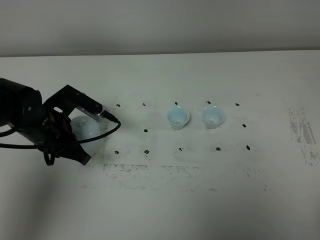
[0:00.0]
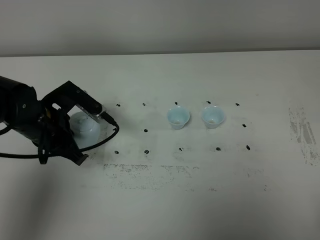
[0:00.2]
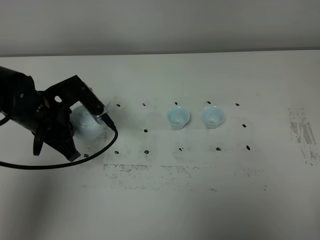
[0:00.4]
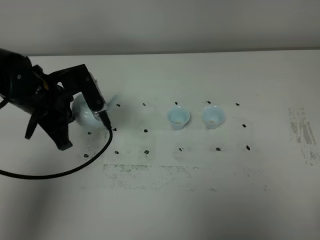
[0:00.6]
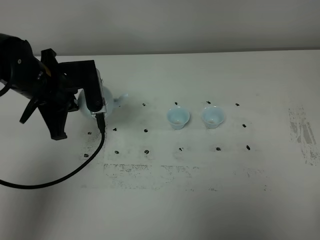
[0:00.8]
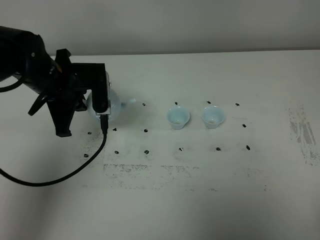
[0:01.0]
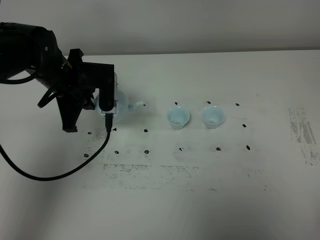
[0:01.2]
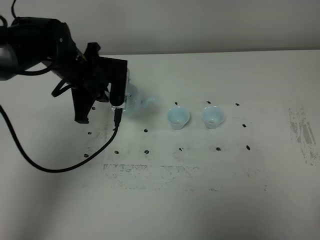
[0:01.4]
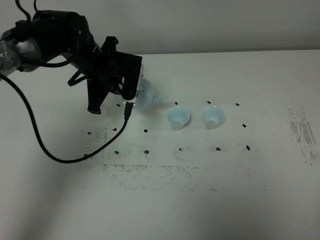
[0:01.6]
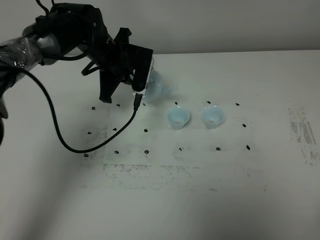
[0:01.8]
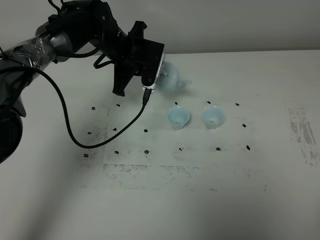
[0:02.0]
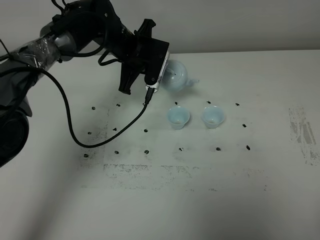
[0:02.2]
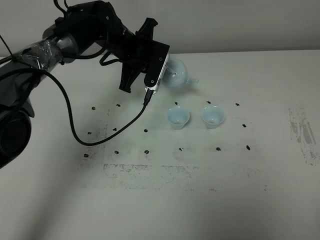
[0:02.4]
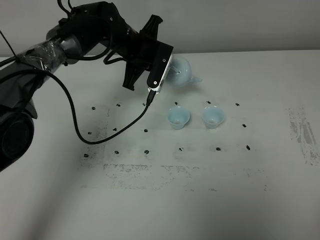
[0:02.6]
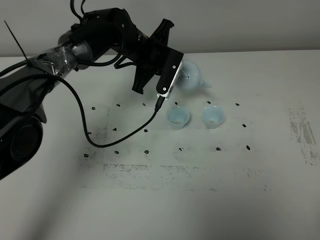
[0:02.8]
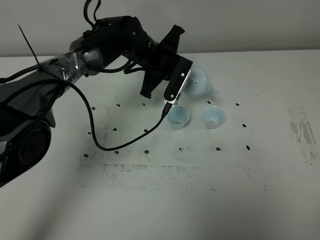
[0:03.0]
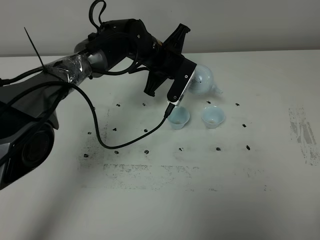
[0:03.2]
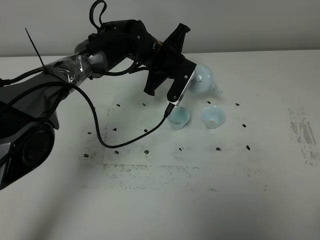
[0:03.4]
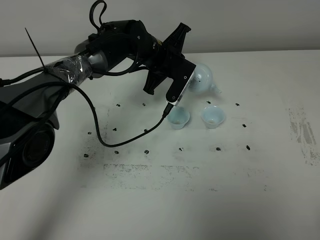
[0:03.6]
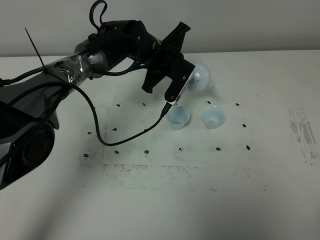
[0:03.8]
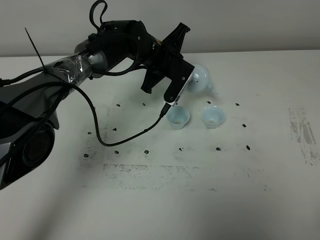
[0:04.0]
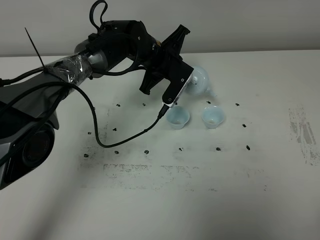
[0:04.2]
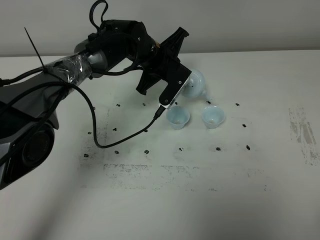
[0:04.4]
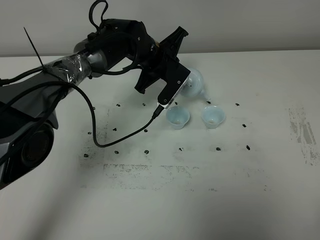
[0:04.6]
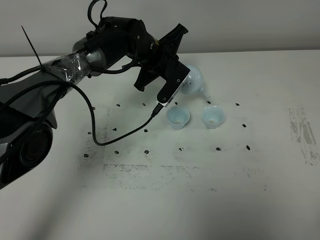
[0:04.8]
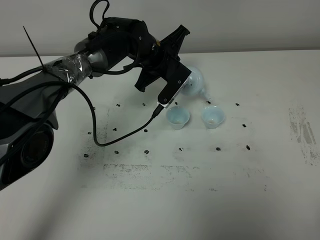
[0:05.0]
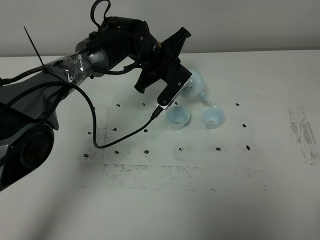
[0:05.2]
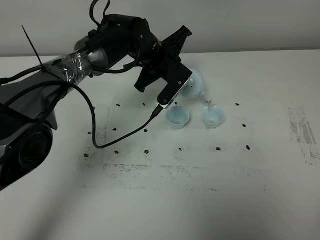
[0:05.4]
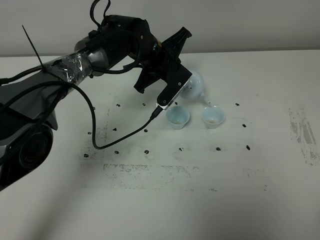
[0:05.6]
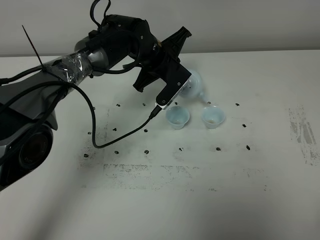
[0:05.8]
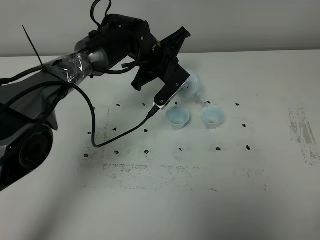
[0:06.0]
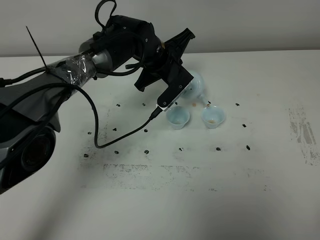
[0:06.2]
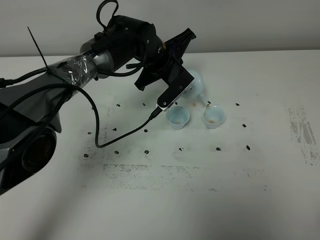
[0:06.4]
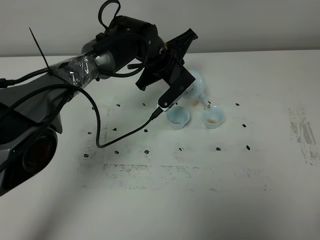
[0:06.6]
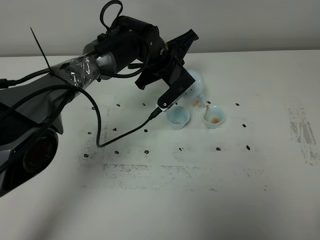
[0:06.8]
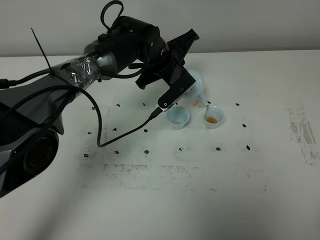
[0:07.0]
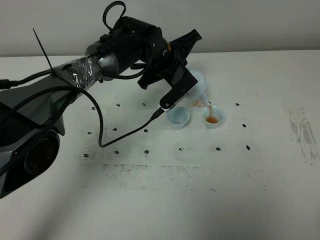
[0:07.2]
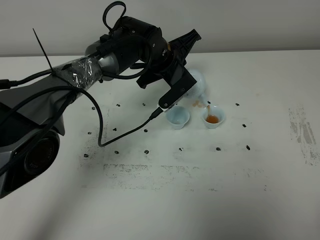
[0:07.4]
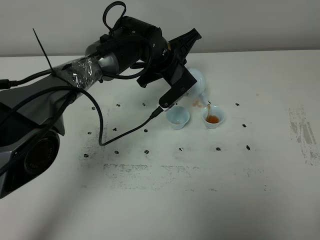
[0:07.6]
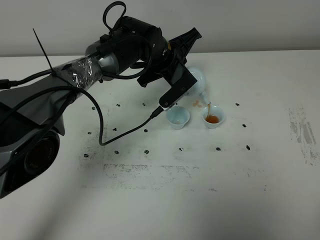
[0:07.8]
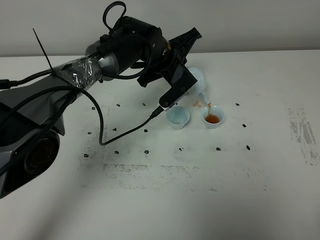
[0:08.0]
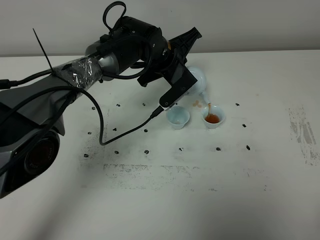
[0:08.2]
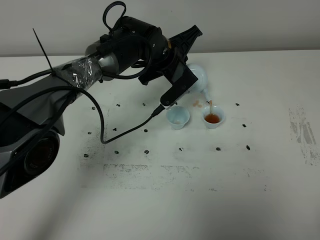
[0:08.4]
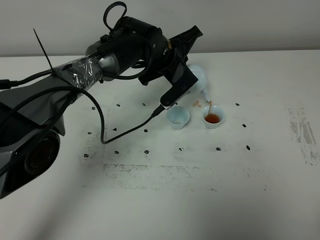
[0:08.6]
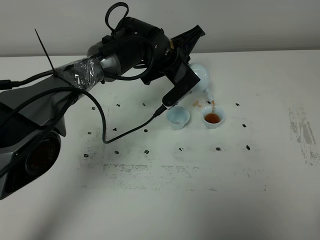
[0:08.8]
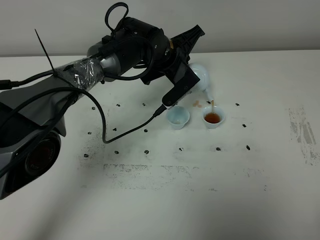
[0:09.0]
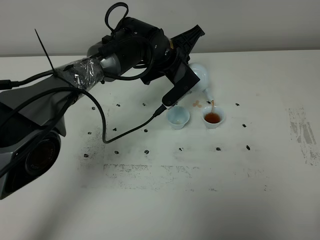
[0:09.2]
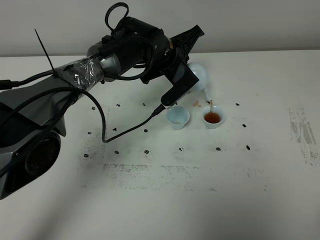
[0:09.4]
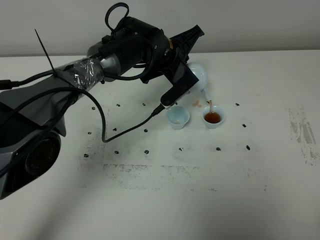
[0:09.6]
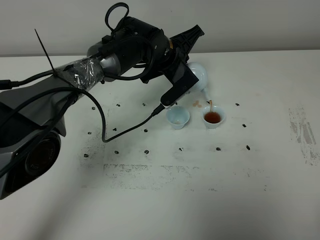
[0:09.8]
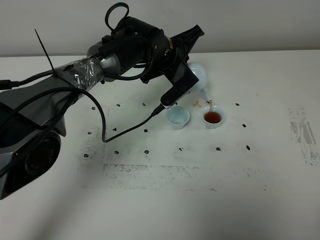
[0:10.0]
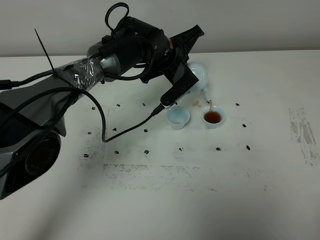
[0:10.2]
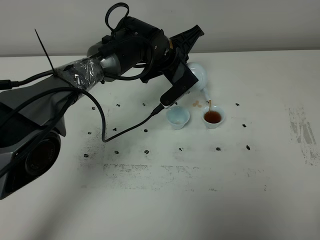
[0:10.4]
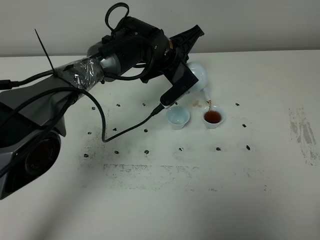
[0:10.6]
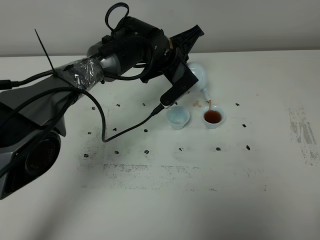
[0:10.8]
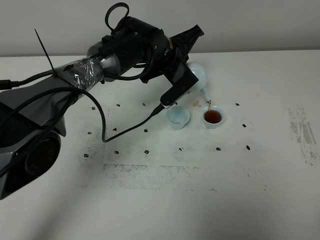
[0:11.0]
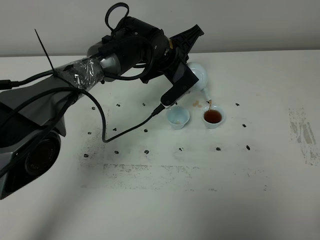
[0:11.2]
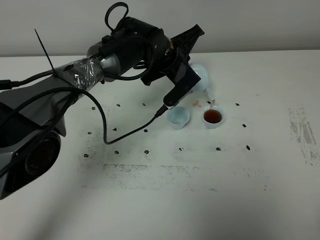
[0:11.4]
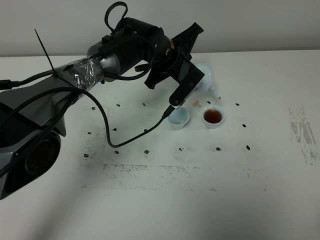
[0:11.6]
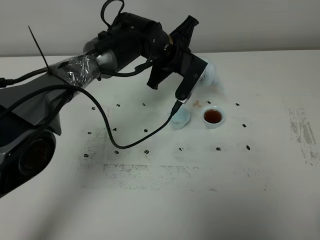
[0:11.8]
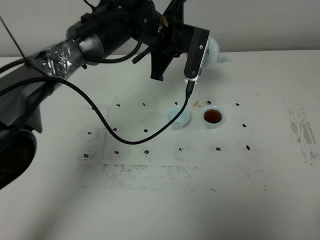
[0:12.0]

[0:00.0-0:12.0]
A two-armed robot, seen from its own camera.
Task of the whole recording: grasp the blue porcelain teapot and pour the tea into the two blue porcelain teacups one by one, put the blue porcelain teapot back in its original place.
0:00.0 to 0:01.6: The left gripper heads forward and to the right, covering roughly 15 cm.
0:01.6 to 0:03.0: The left gripper goes roughly 10 cm to the right.
0:03.0 to 0:06.0: The grippers stay close to where they were, moving slightly.
0:06.0 to 0:07.6: The grippers stay close to where they were, moving slightly.
0:07.6 to 0:10.4: Neither gripper changes place.
0:10.4 to 0:12.0: The left gripper moves upward, approximately 5 cm.

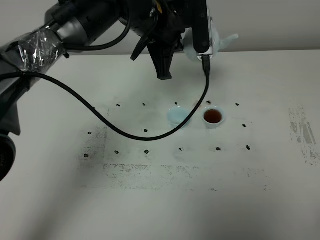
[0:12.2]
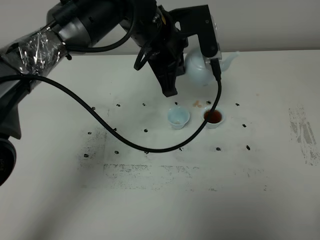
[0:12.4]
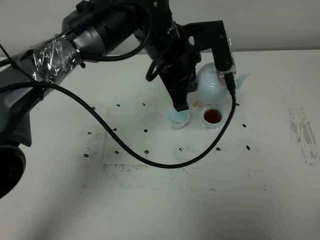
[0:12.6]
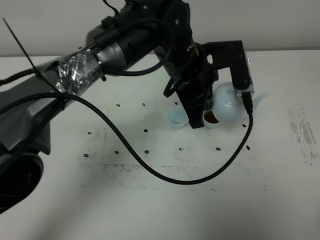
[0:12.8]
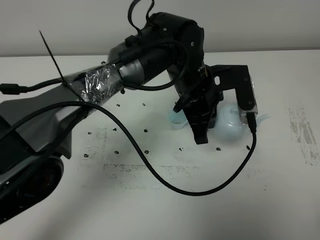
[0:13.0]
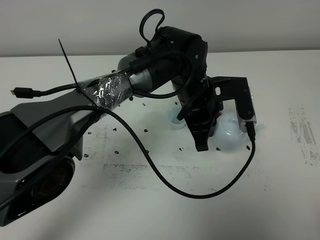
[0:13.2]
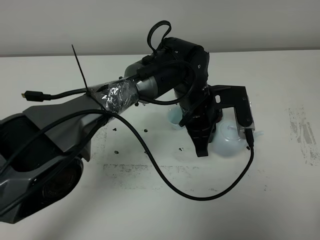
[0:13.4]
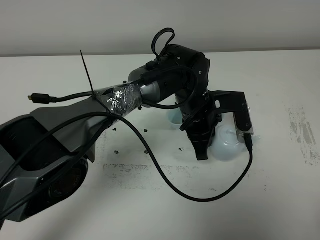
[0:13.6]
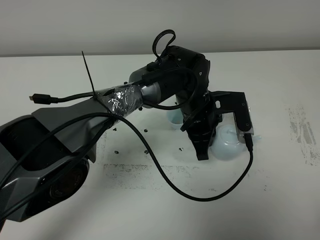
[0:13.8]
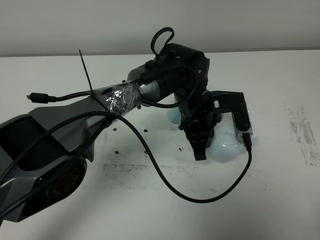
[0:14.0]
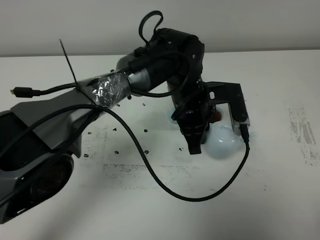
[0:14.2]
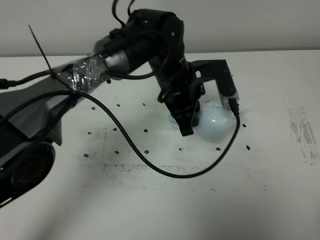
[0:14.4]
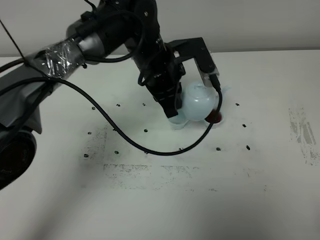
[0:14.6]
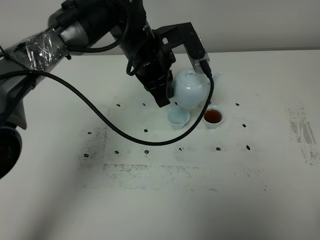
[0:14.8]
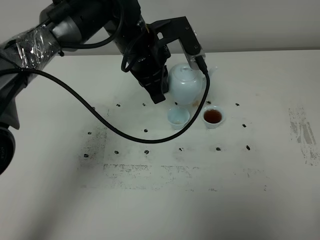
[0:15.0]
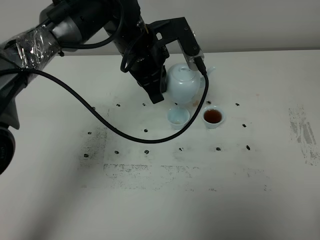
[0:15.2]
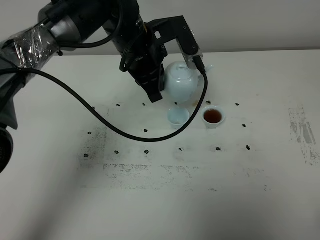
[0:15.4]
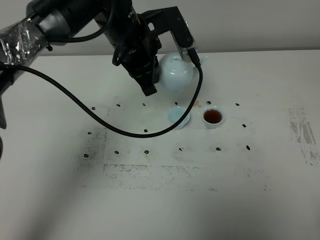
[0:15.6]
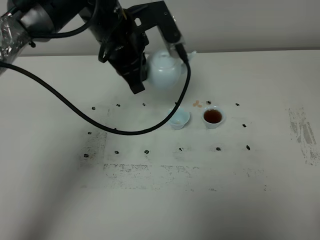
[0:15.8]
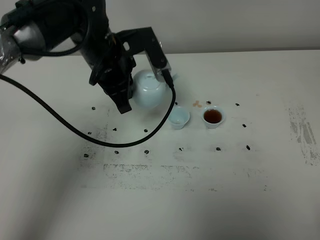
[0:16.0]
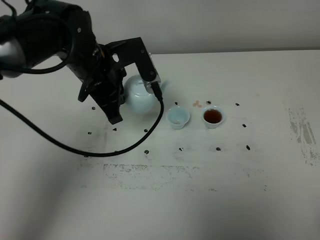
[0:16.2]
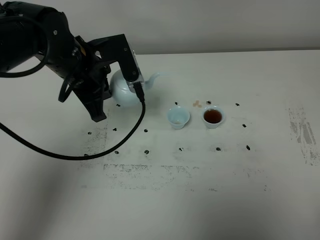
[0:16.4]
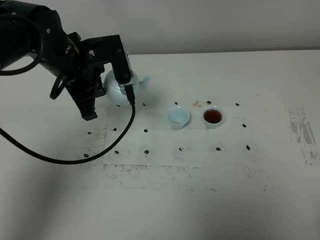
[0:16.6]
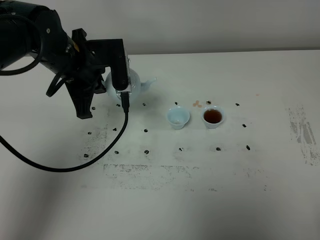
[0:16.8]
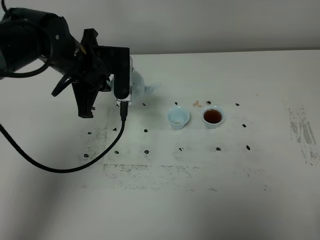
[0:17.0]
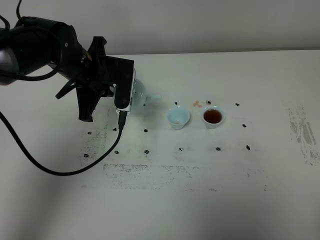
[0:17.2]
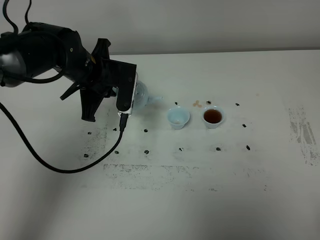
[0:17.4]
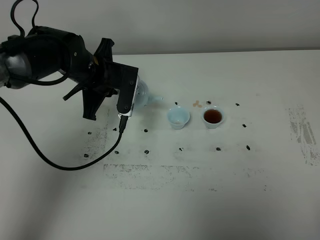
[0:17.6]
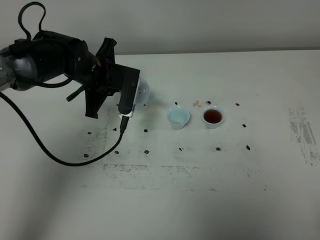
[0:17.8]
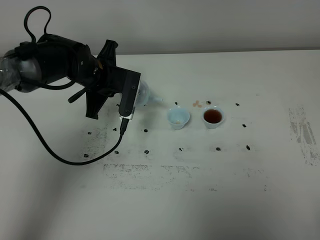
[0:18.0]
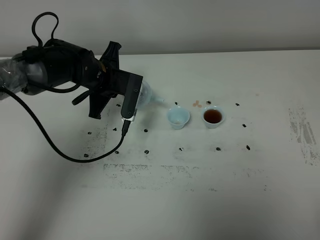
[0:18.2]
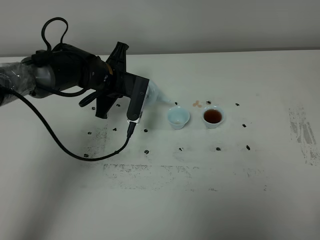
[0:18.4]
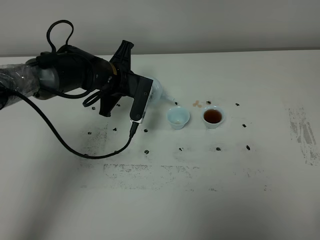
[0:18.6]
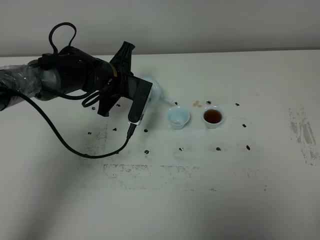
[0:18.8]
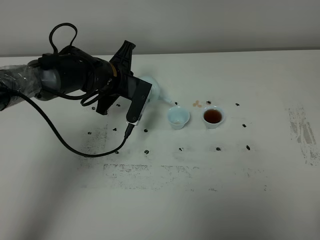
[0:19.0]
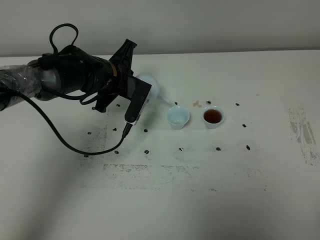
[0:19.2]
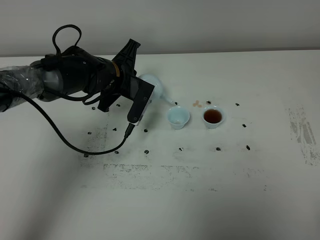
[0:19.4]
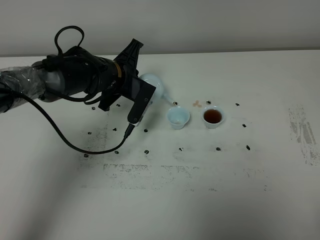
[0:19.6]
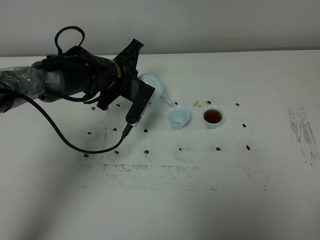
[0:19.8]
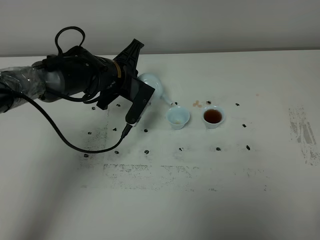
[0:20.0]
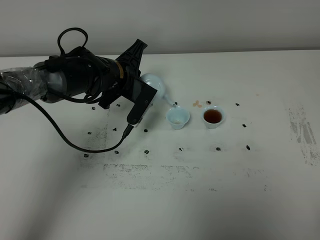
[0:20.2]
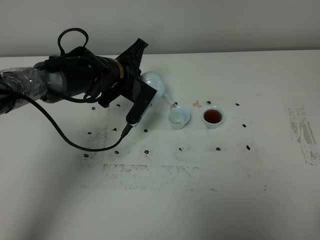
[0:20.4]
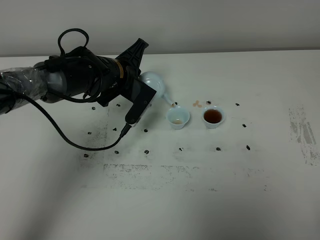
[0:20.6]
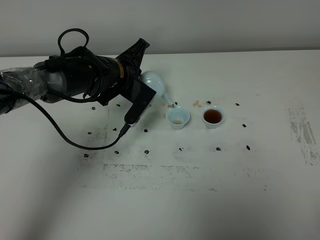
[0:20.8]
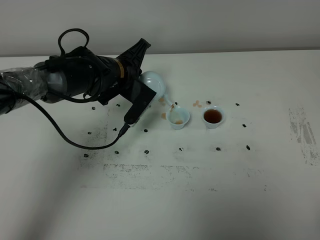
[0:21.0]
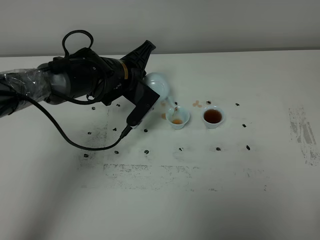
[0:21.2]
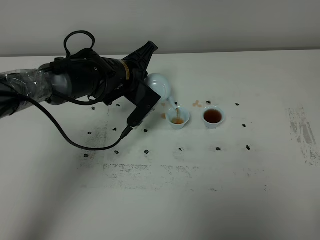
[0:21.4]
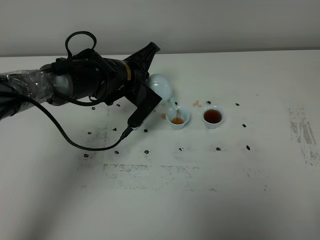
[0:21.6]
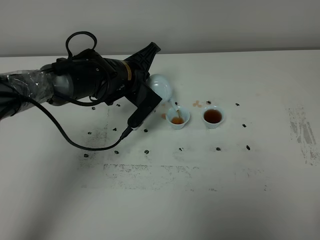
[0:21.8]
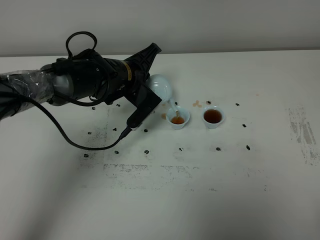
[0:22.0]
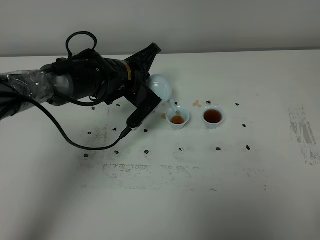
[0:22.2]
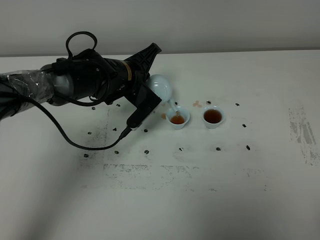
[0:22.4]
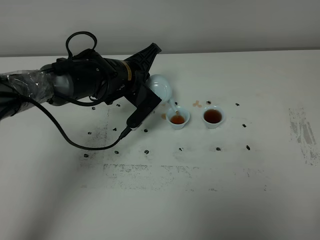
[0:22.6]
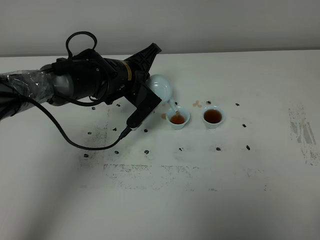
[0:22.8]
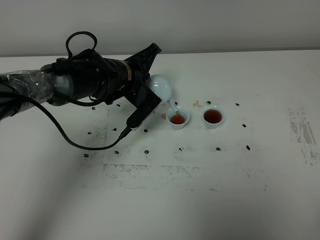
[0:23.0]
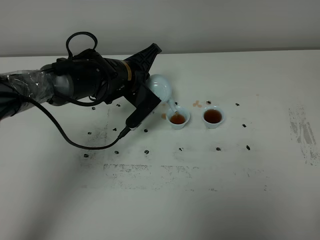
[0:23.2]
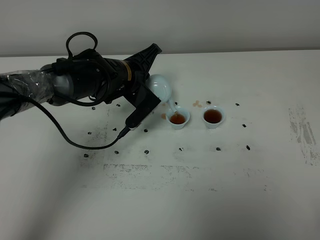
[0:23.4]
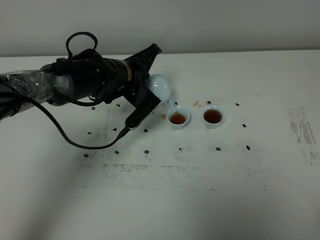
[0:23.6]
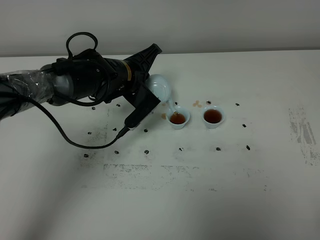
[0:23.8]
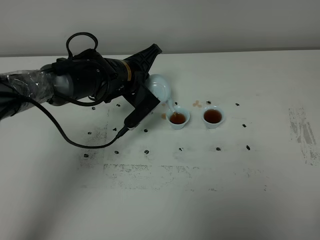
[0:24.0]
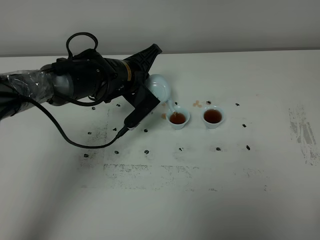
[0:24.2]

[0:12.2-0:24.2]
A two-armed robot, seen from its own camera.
Task of the whole recording: grasp the blue porcelain teapot and pour the tea into the two blue porcelain teacups one by one, put the blue porcelain teapot back in its original place.
0:12.2 to 0:13.8: The left gripper moves downward and to the right, approximately 15 cm.
0:13.8 to 0:15.2: The left gripper moves upward and to the left, about 15 cm.
0:15.2 to 0:16.6: The left gripper goes approximately 10 cm to the left.
0:16.6 to 0:18.2: The left gripper travels downward and forward by some 10 cm.
0:18.2 to 0:19.8: The grippers move only a little.
0:19.8 to 0:21.2: There are only small adjustments of the grippers.
0:21.2 to 0:22.6: Both grippers stay put.
0:22.6 to 0:24.2: Neither gripper changes place.
